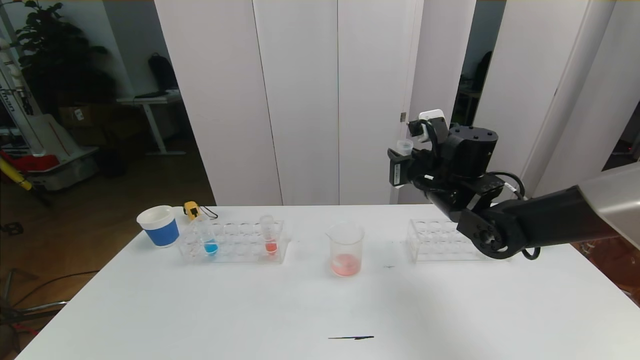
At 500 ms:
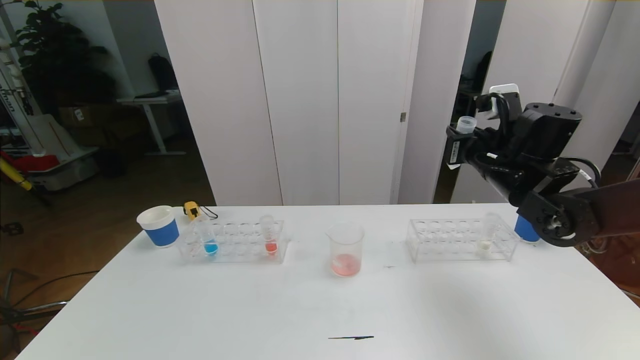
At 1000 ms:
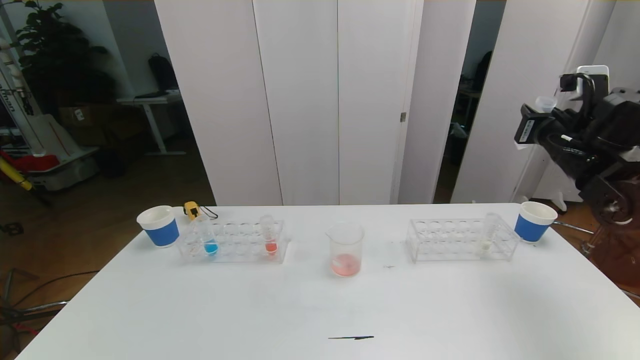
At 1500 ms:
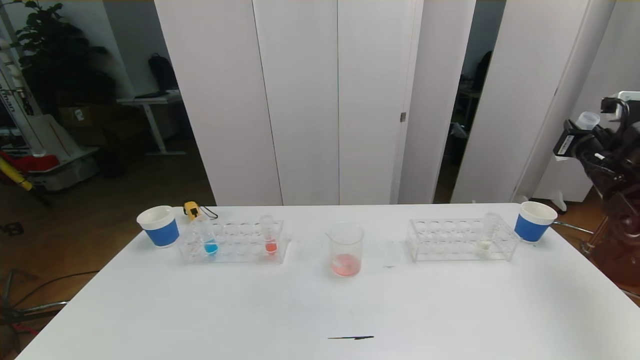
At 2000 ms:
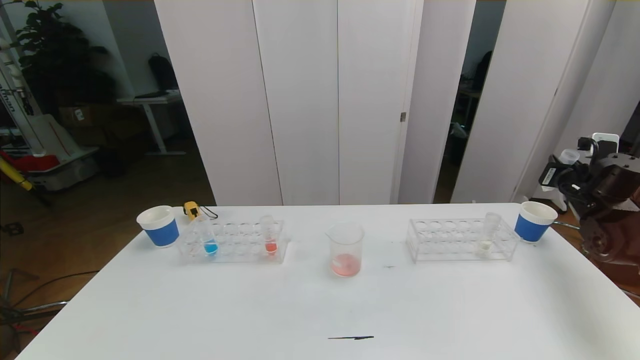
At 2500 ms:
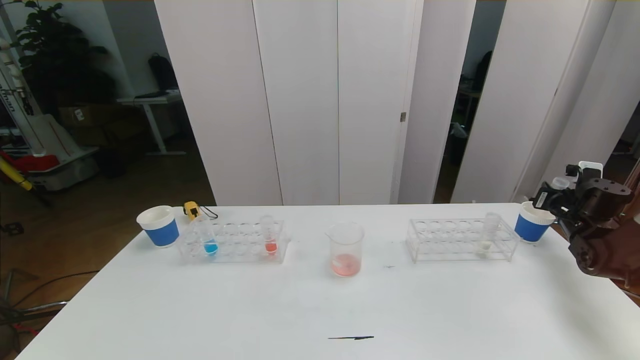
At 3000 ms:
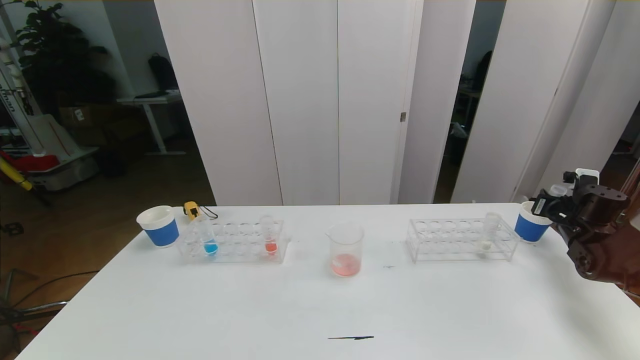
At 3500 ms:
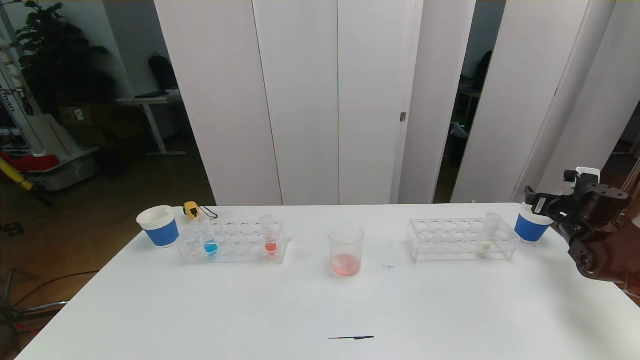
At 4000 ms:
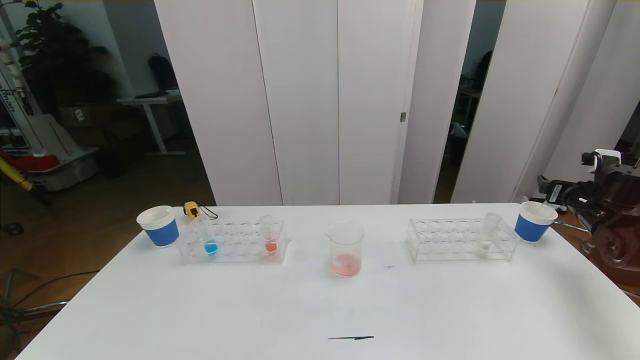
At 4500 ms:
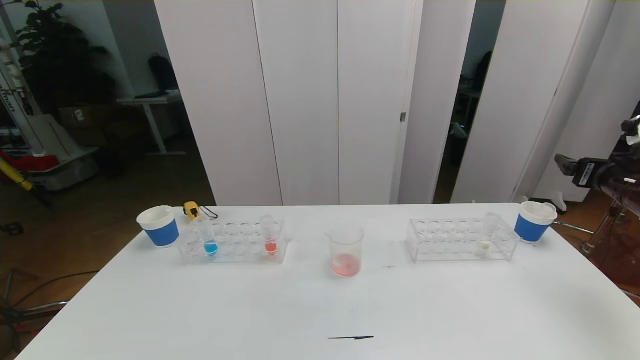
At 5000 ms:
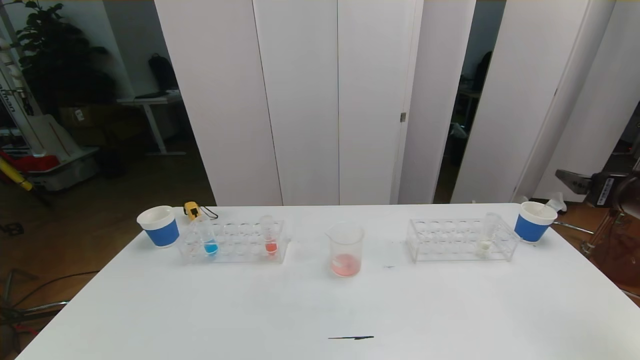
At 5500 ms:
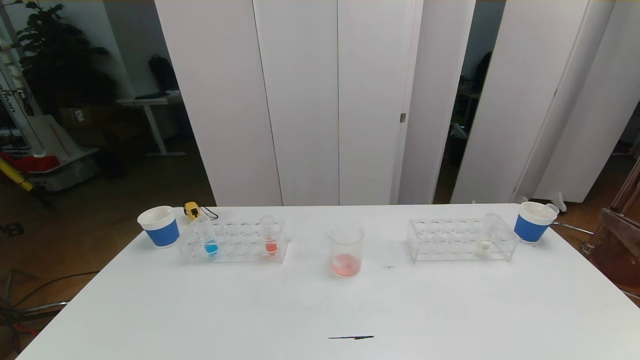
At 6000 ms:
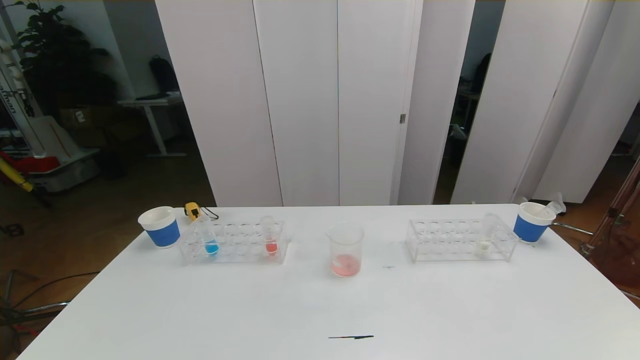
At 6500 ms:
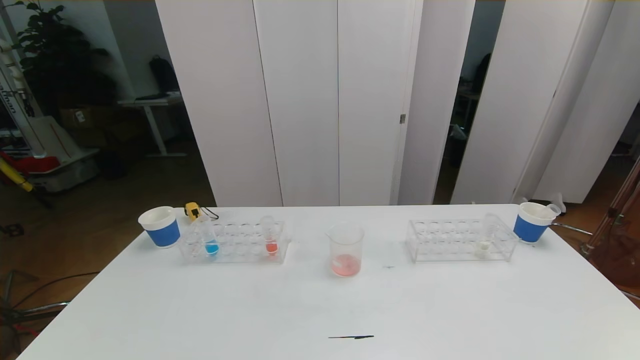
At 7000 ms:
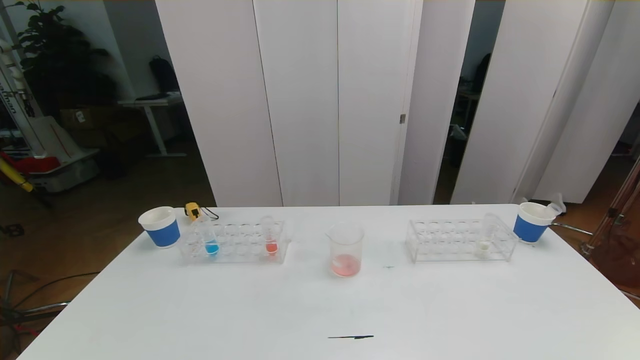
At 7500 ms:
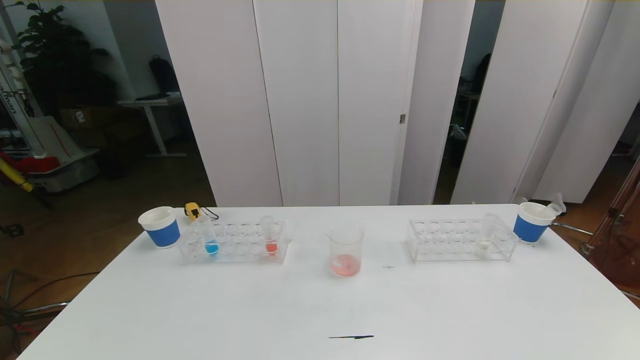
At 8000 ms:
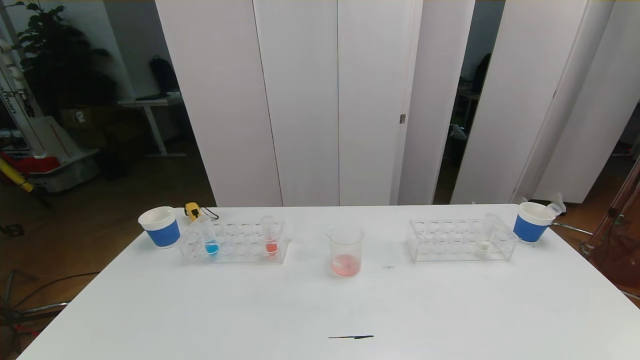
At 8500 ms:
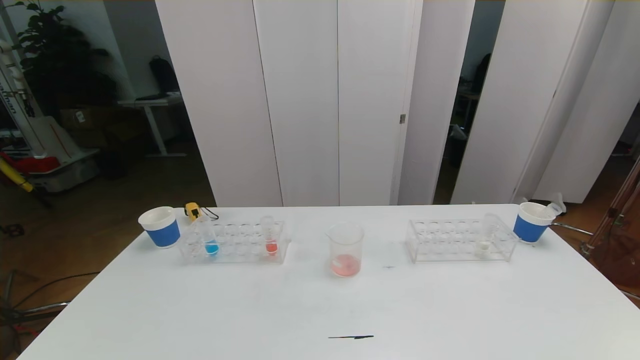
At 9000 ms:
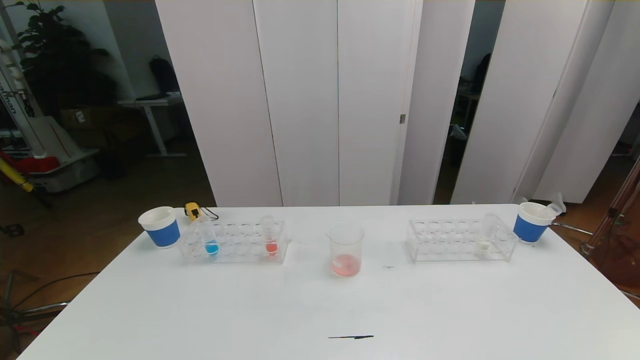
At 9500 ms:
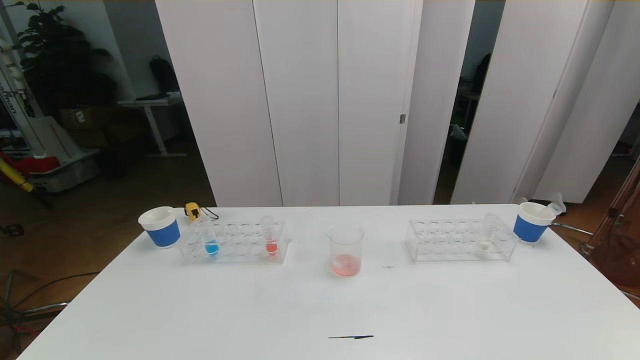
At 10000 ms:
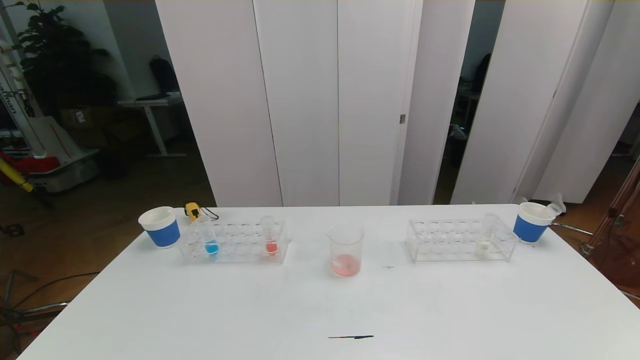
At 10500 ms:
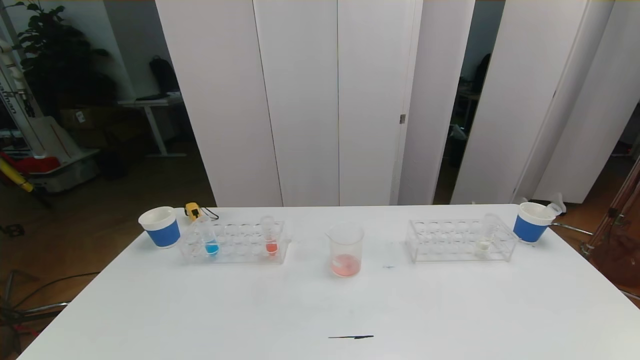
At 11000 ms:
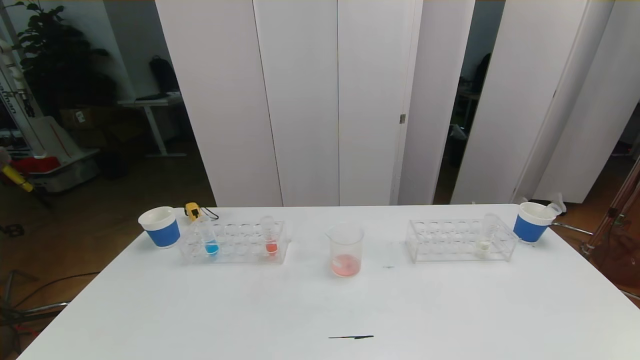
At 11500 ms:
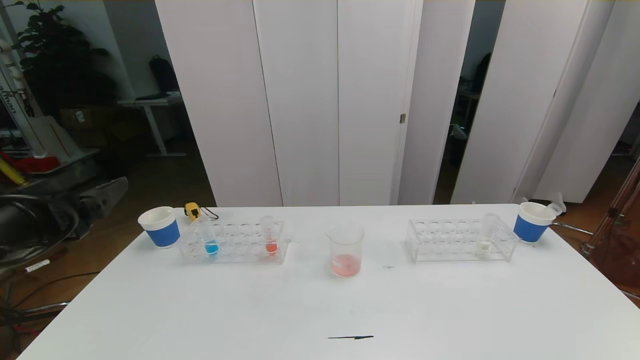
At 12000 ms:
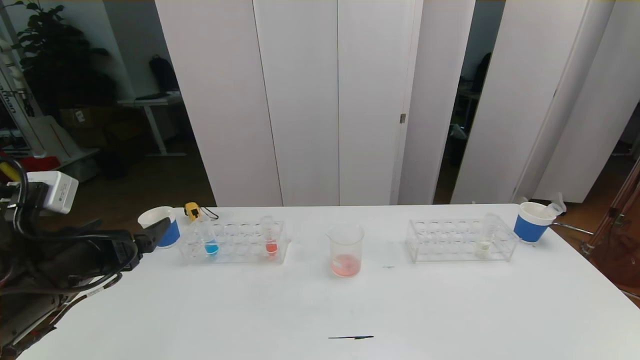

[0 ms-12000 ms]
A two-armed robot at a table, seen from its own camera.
Task of the whole recording: pick up the test tube with red pigment the test tube with blue pigment and the test tube with white pigment by grippers and pour them into the beaker.
Step, 0 ms to 6000 ms: Pour the red reagent into the graduated cylinder and place the test tube into the paper cup.
0 ms to 2000 ms: The right gripper shifts roughly 30 cm to the right.
2000 ms to 4000 ms: The right gripper opens up.
4000 ms to 6000 ms: The right gripper moves backward, approximately 40 cm.
10000 ms to 12000 ms: The left gripper heads forward, covering about 25 cm.

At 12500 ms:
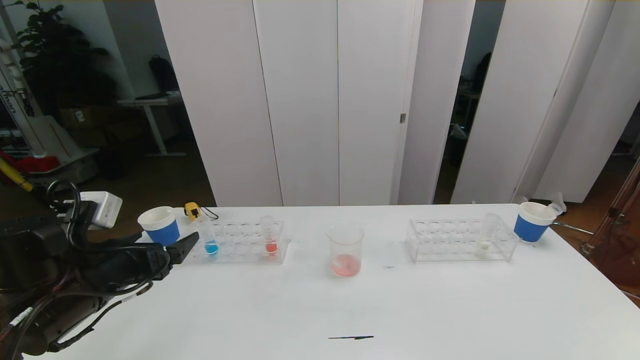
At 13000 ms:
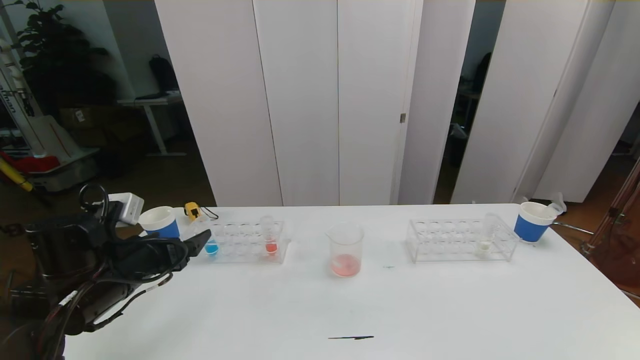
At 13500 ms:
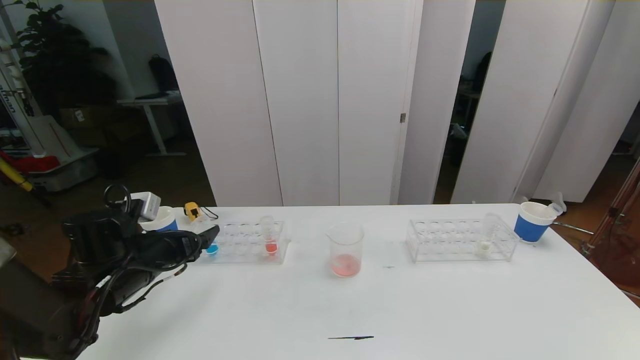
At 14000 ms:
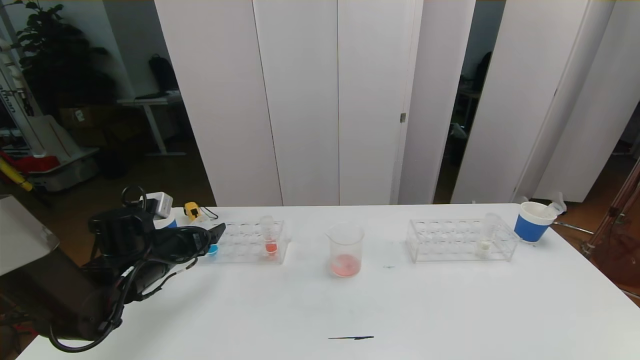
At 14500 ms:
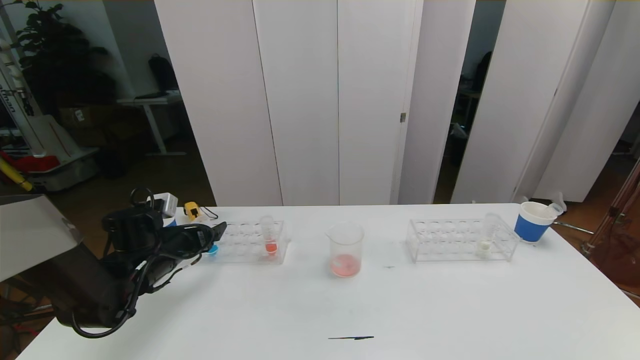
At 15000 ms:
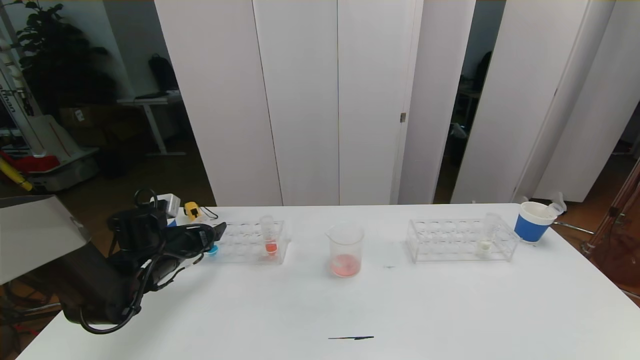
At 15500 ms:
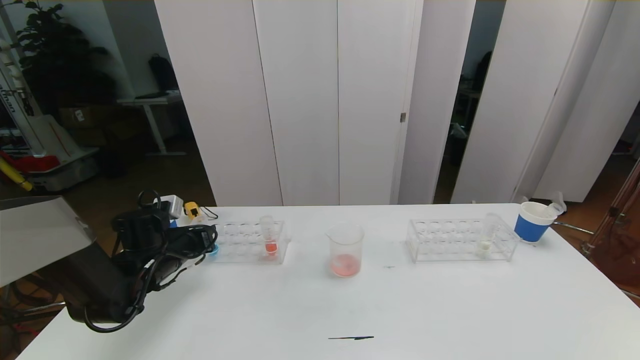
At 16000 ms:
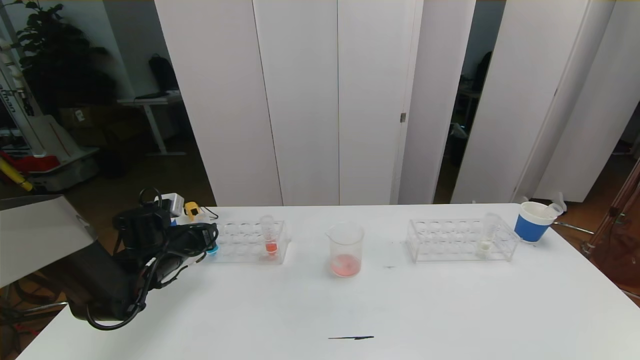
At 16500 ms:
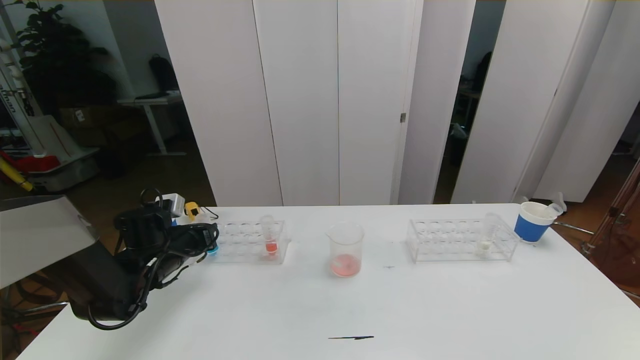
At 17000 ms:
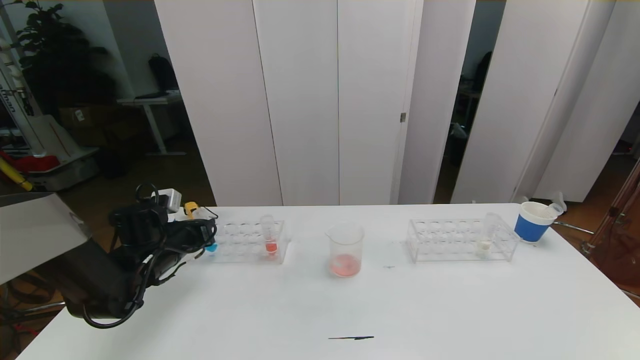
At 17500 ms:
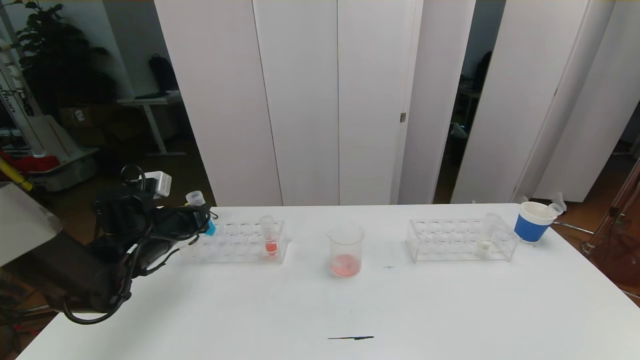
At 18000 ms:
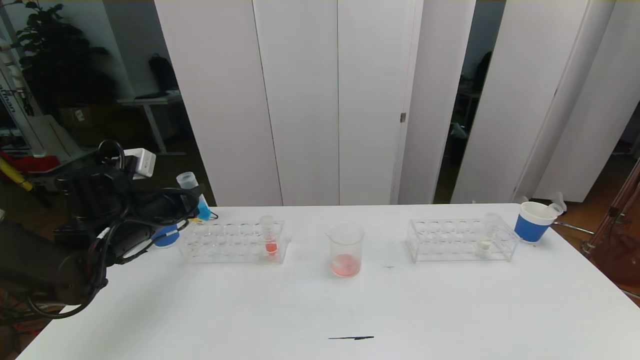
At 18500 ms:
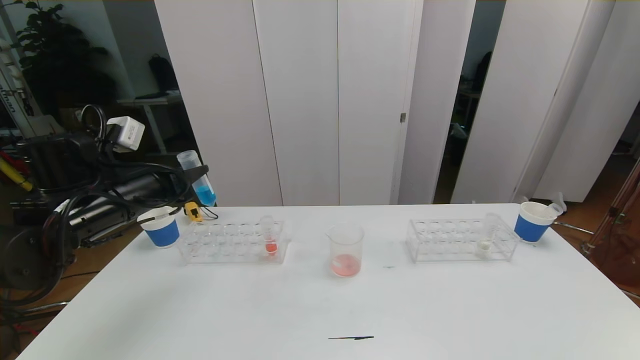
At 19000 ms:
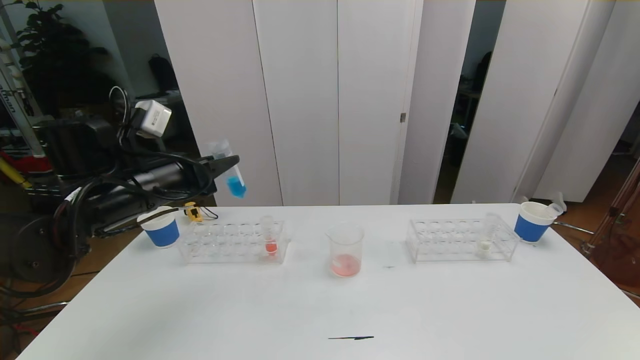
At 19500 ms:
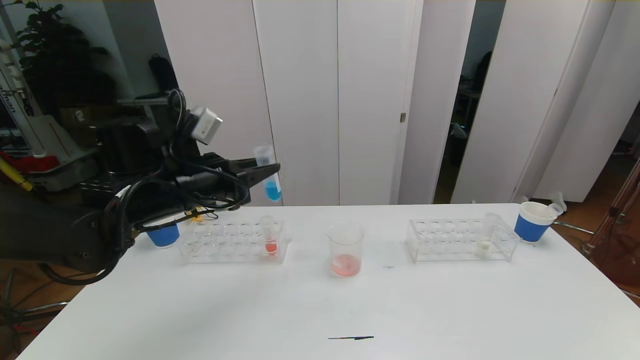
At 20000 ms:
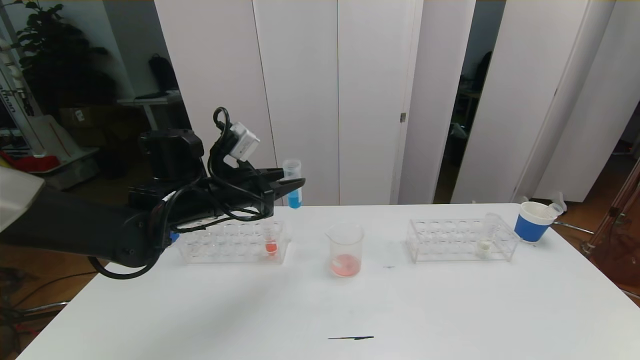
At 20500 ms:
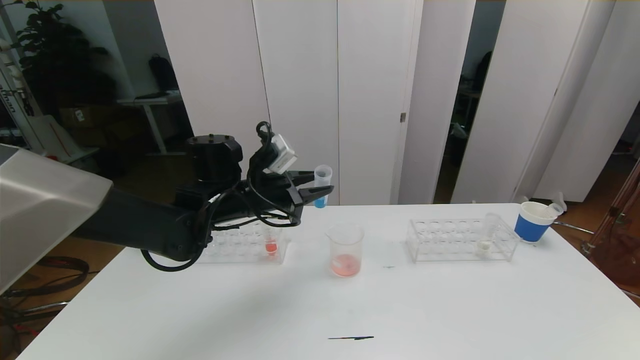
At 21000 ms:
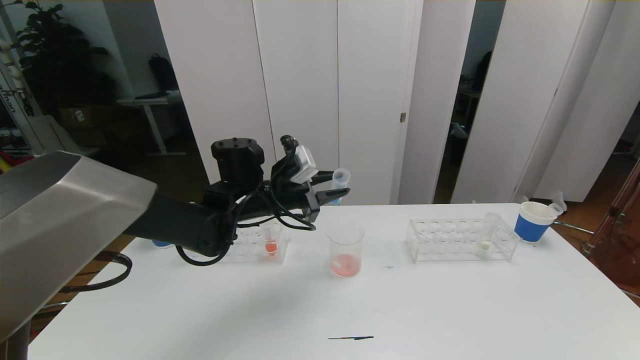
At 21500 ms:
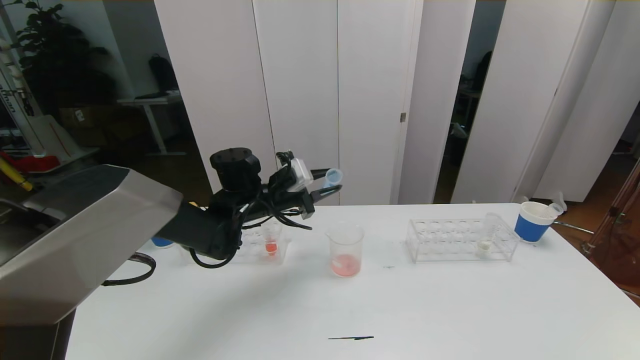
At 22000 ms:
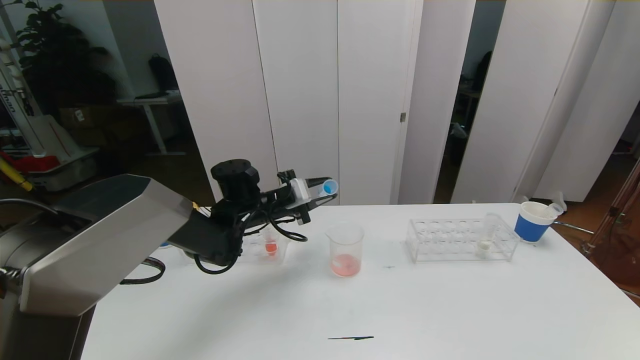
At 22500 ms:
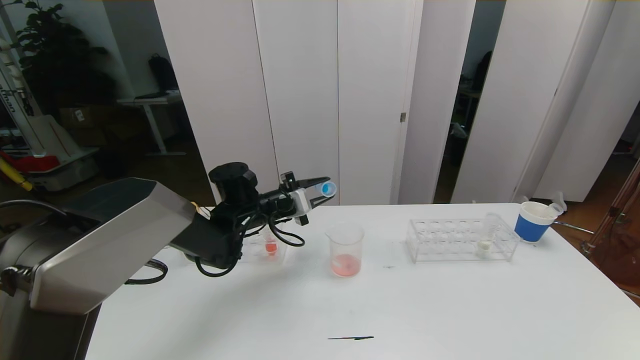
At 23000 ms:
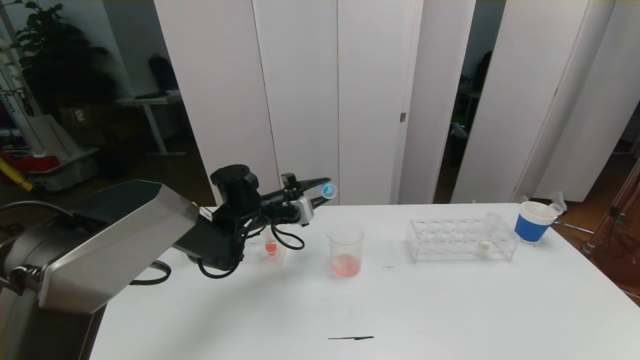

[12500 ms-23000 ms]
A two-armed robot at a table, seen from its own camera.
Task of the whole recording: pick up the test tube with red pigment the test tube with blue pigment and the test tube with white pigment by grippers and pour them into the beaker.
12500 ms to 14500 ms: The left gripper goes roughly 15 cm forward and downward.
14500 ms to 16500 ms: The left gripper closes up.
16500 ms to 19000 ms: The left gripper heads upward, covering approximately 15 cm.
19000 ms to 21000 ms: The left gripper is displaced to the right, forward and downward by approximately 15 cm.
21000 ms to 23000 ms: The left gripper moves downward, some 5 cm.
